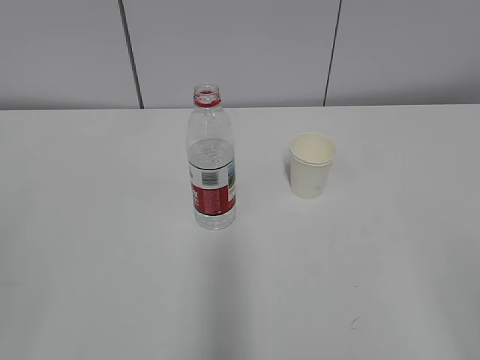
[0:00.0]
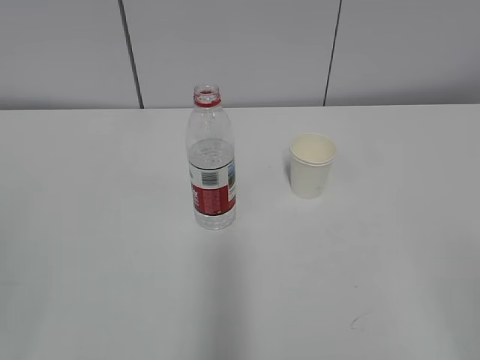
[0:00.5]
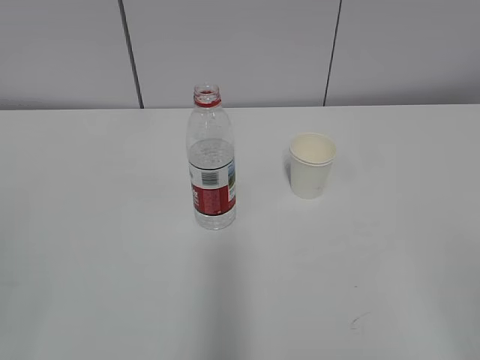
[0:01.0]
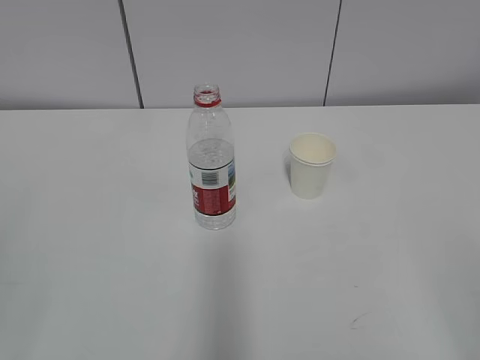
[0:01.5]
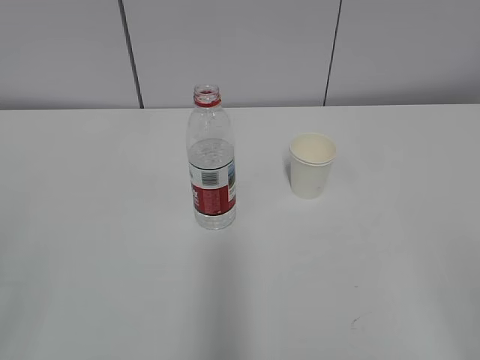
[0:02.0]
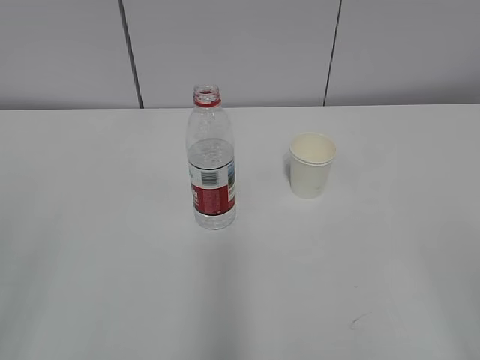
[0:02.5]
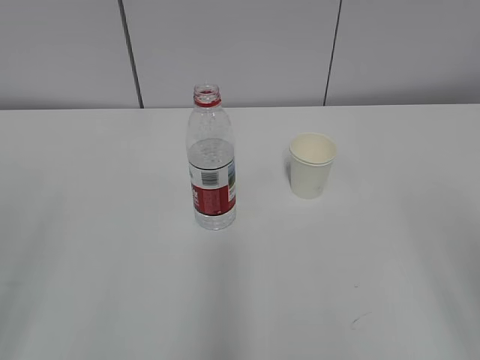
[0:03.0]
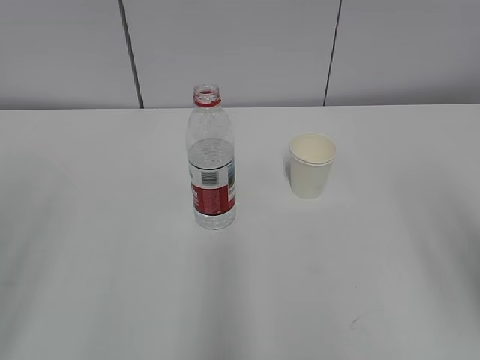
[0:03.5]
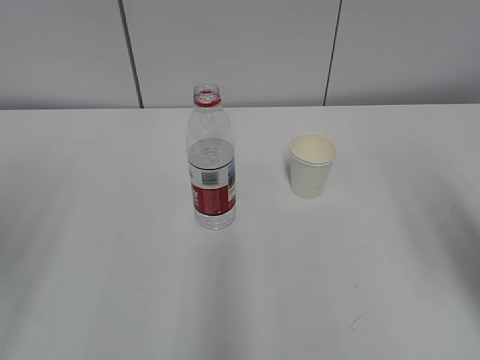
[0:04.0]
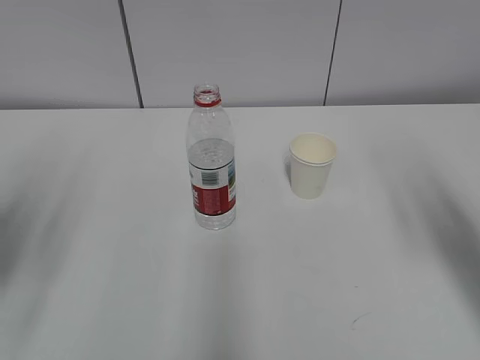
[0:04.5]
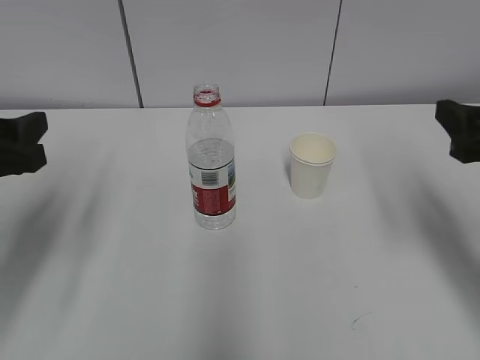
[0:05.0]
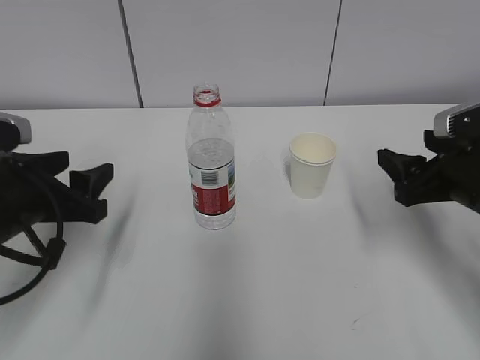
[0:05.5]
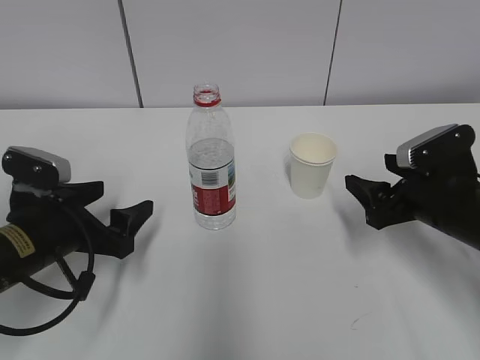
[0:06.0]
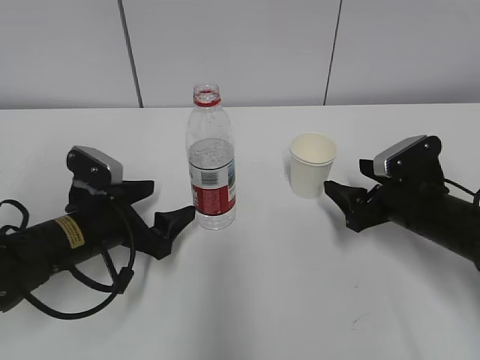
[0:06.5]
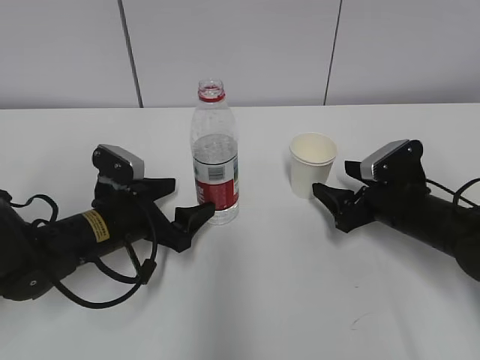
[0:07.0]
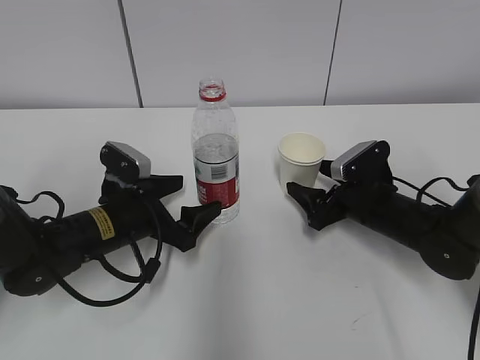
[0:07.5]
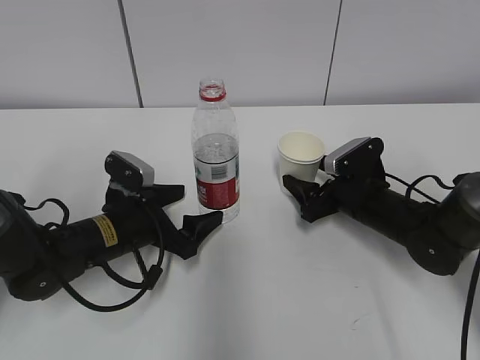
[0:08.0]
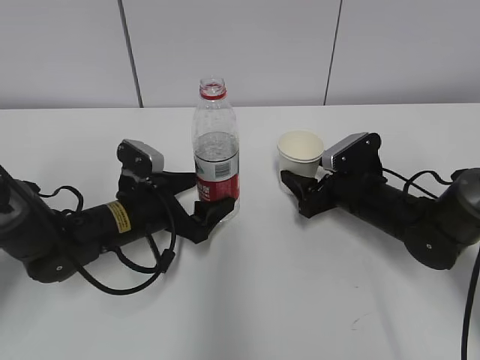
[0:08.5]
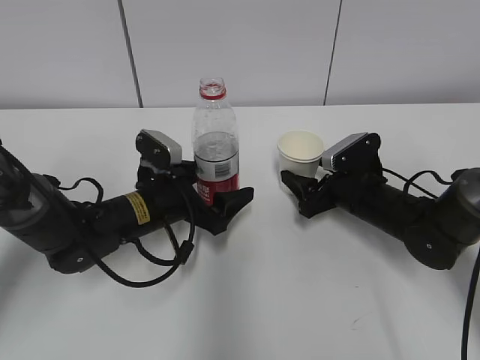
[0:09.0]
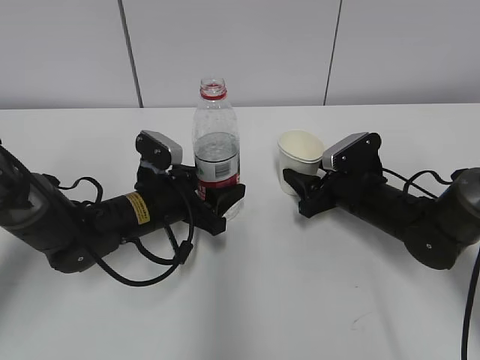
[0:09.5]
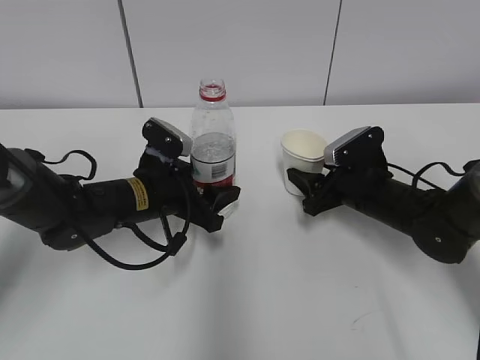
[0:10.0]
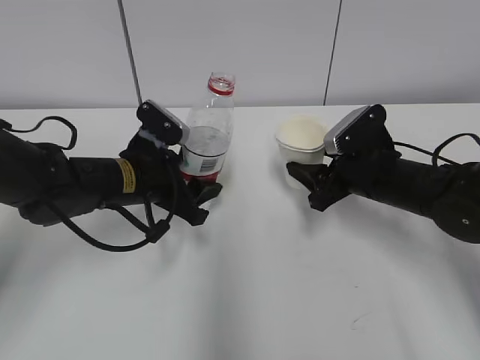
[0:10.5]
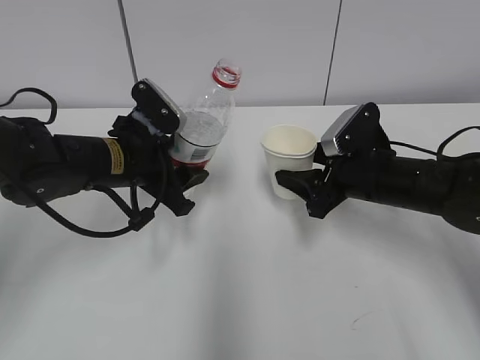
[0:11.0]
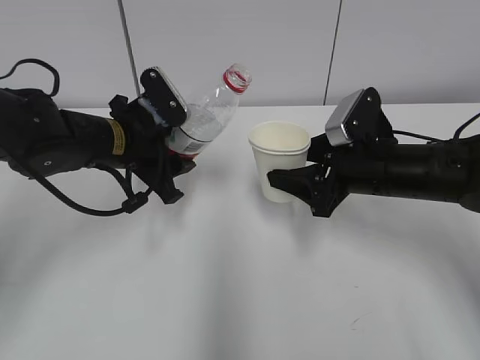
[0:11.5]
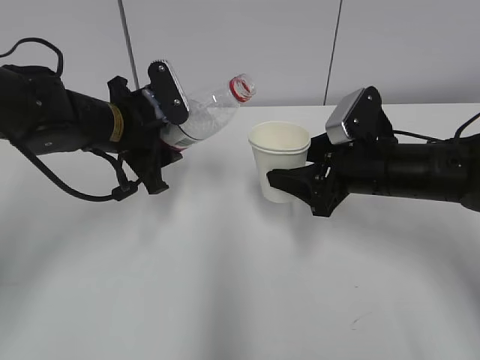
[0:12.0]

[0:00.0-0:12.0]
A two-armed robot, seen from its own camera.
Step, 0:00.0 to 0:08.0: Grab the paper cup with the right hand.
0:02.0 to 0:04.0: The right gripper goes about 15 cm forward.
0:04.0 to 0:06.0: The right gripper goes roughly 25 cm downward and forward. Meanwhile the left gripper moves downward, forward and to the right, approximately 25 cm.
0:06.0 to 0:08.0: The left gripper heads to the right, forward and downward, covering about 10 cm. The right gripper is displaced forward and downward by roughly 10 cm.
0:08.0 to 0:10.0: The left gripper changes place by some 5 cm, and closes up. The right gripper closes.
0:10.0 to 0:12.0: The two grippers go approximately 10 cm upward.

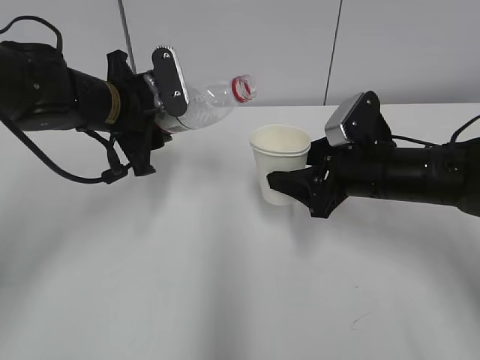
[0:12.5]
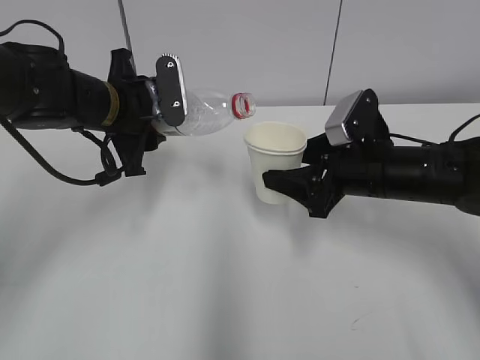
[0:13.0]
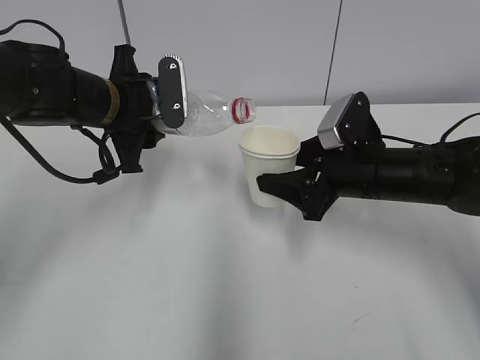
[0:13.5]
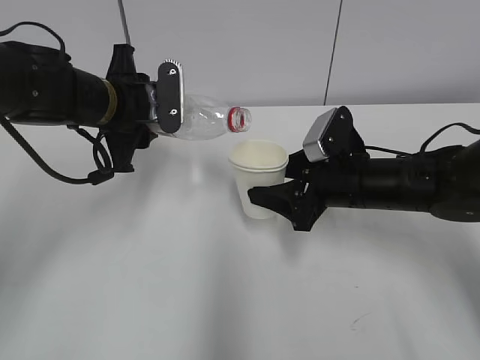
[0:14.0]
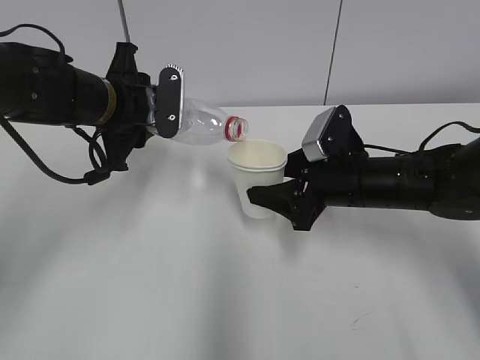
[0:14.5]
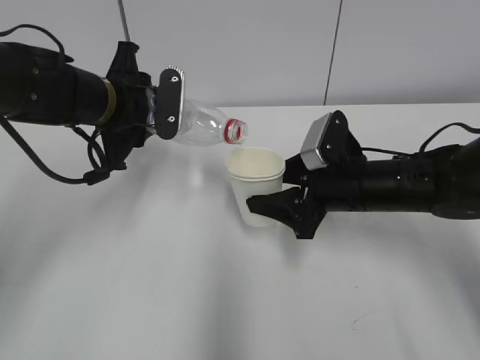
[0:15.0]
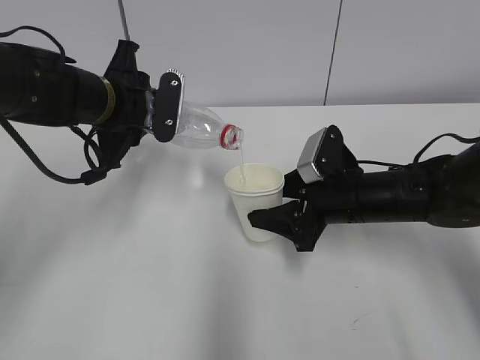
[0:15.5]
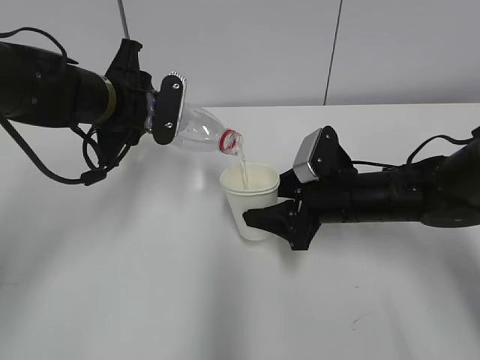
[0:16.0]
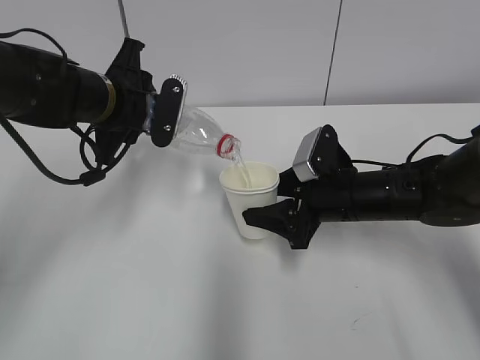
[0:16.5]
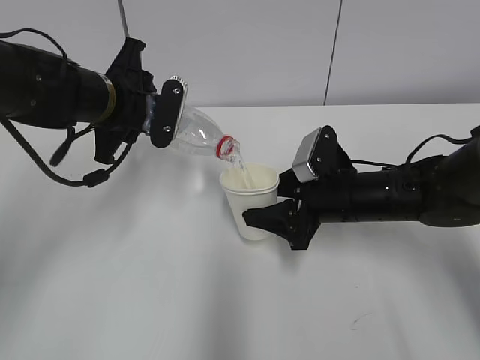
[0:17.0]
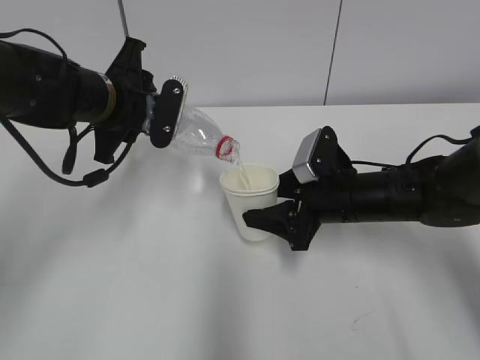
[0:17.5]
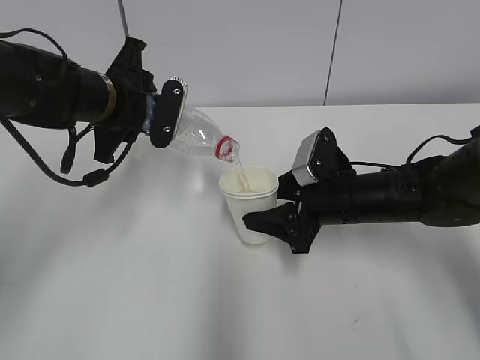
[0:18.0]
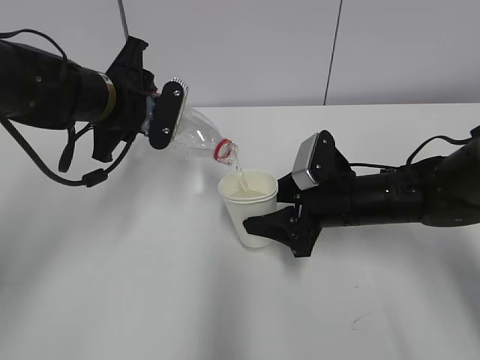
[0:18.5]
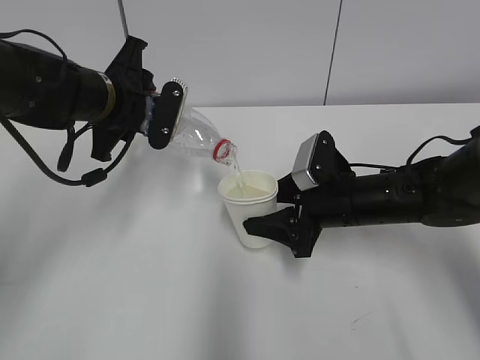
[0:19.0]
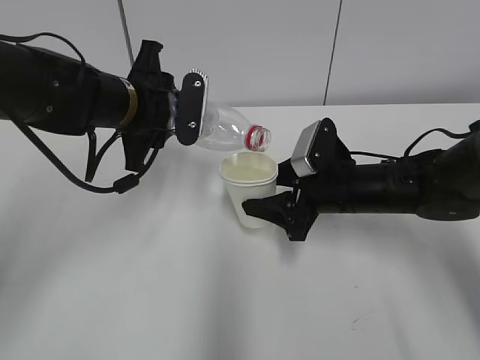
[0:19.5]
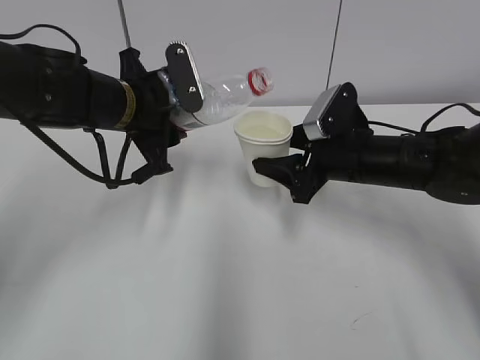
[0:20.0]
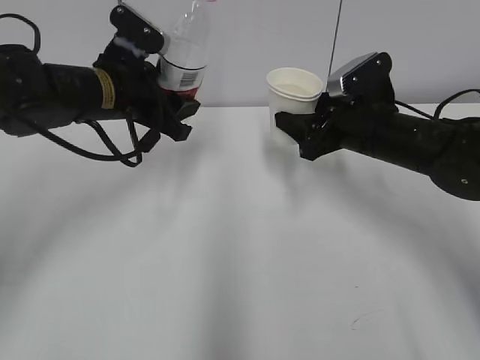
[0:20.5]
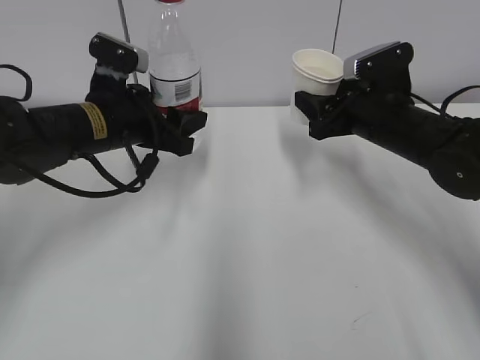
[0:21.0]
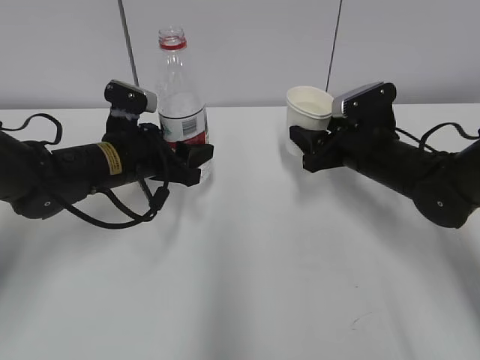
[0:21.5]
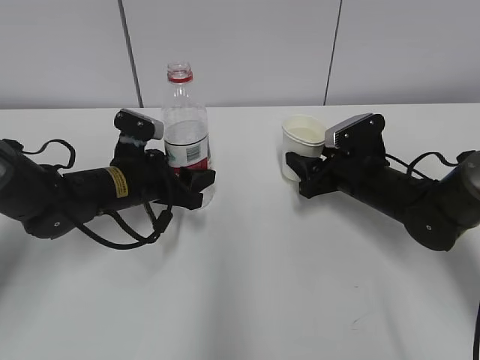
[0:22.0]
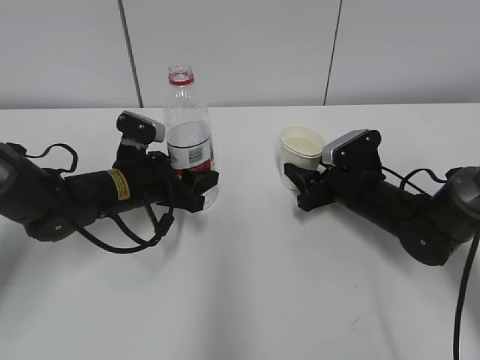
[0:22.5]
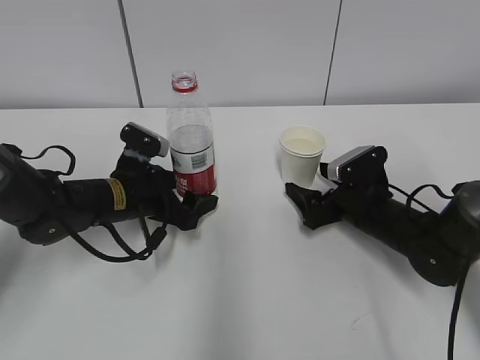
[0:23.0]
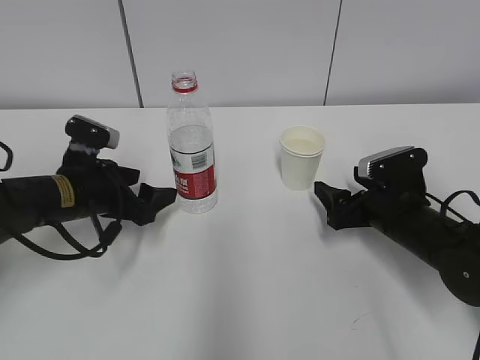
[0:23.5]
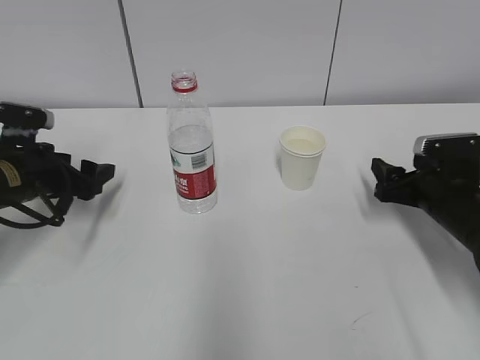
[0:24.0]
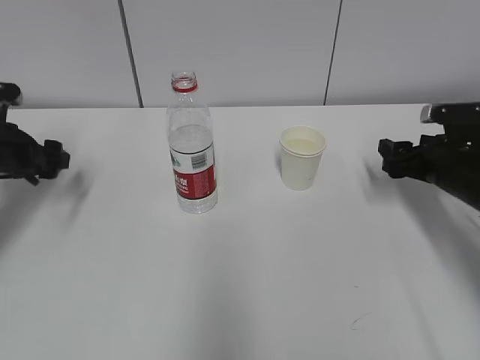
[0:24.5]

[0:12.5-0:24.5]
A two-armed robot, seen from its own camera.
Step, 0:13.0 to 0:16.0: Fill water with the right hand.
Step, 0:13.0 to 0:16.0: Pour water with the left hand.
Step, 0:16.5 to 0:17.5: Collect water with the left hand.
Step, 0:18.0 to 0:18.5: Place the paper cup with the right hand.
0:14.5 to 0:16.5: The grippers stay close to where they were, moving slightly.
0:16.5 to 0:18.5: Both grippers stay about where they are.
0:18.5 to 0:20.5: The right gripper is displaced upward by about 5 cm.
0:20.5 to 0:22.5: Both grippers move downward, some 10 cm.
0:22.5 to 0:24.5: The right gripper moves to the right and upward, some 10 cm, and opens its fingers. Meanwhile the left gripper travels to the left by approximately 15 cm, and opens up.

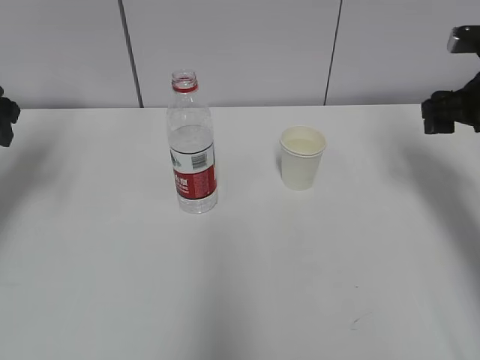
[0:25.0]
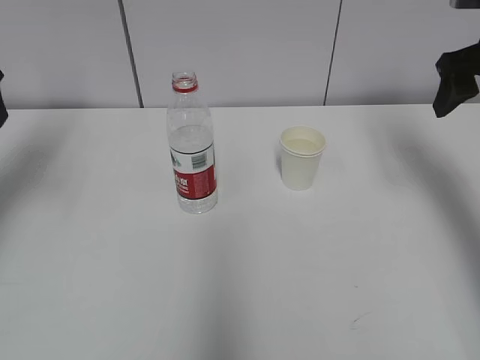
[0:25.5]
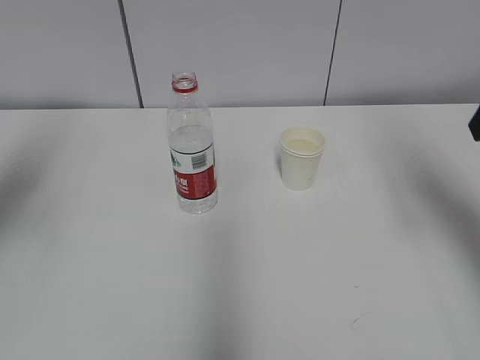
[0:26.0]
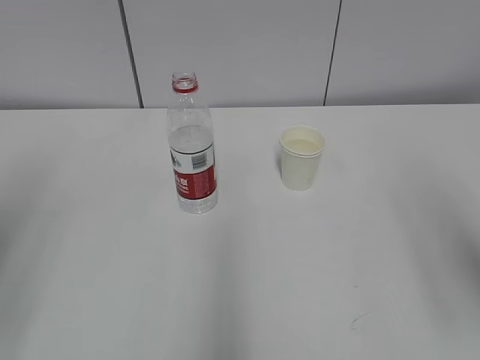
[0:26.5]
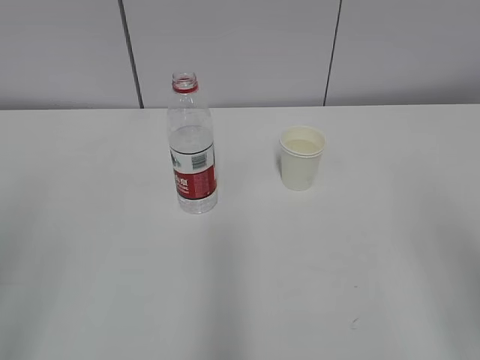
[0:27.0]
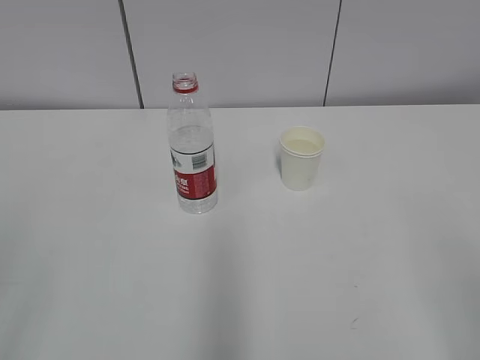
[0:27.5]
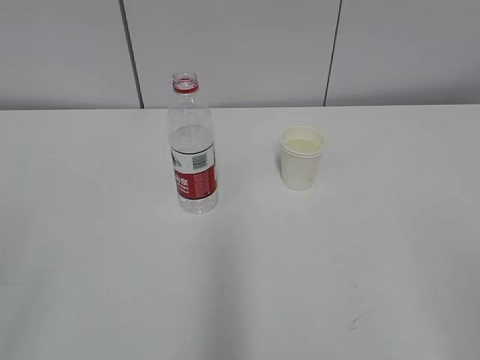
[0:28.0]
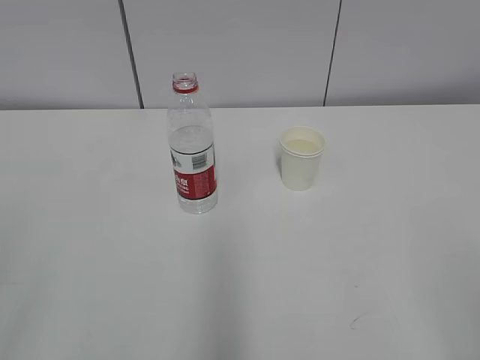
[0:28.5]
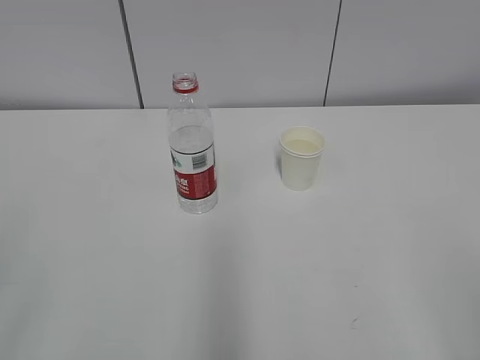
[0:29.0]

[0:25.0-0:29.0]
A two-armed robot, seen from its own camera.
0:25.0 to 0:27.0: Both grippers travel together backward, roughly 30 cm.
